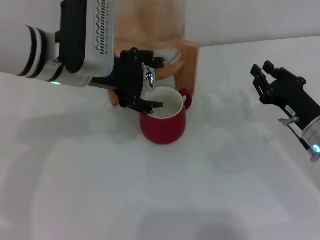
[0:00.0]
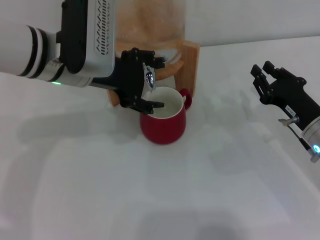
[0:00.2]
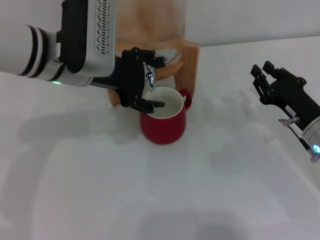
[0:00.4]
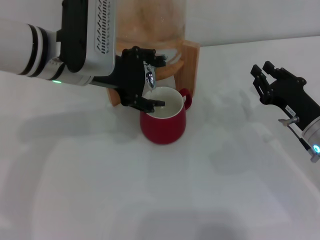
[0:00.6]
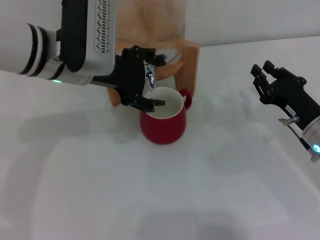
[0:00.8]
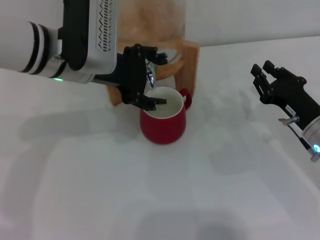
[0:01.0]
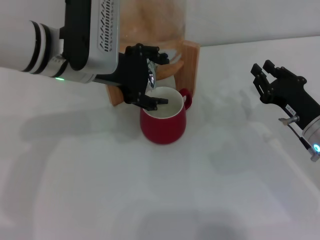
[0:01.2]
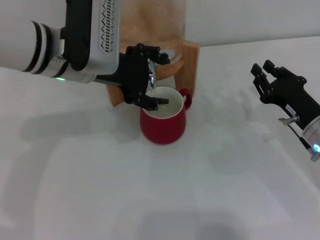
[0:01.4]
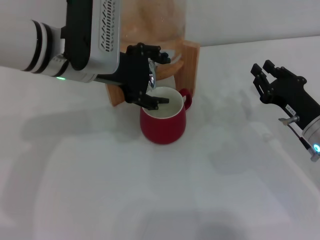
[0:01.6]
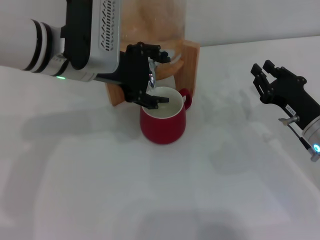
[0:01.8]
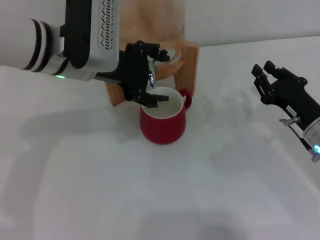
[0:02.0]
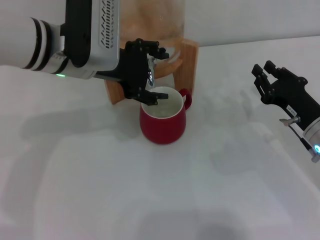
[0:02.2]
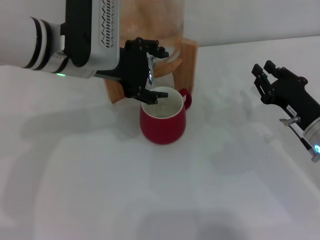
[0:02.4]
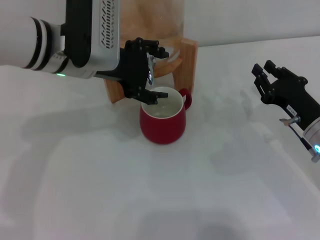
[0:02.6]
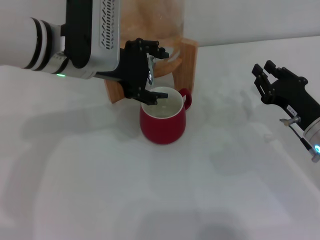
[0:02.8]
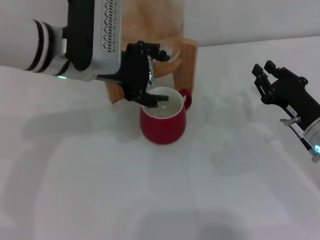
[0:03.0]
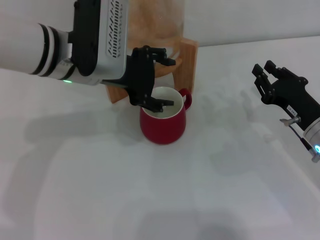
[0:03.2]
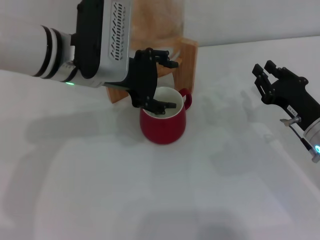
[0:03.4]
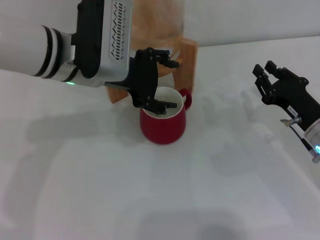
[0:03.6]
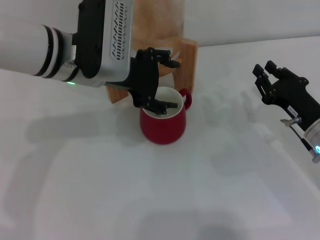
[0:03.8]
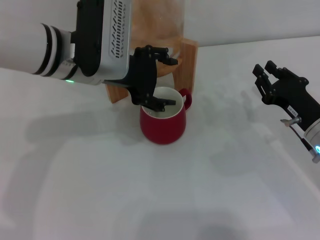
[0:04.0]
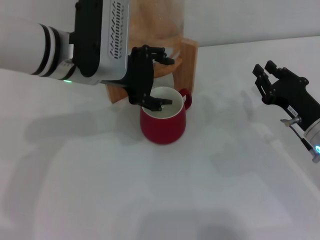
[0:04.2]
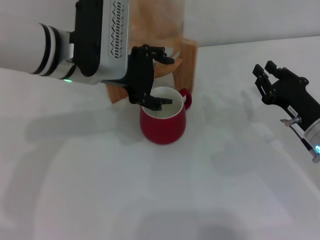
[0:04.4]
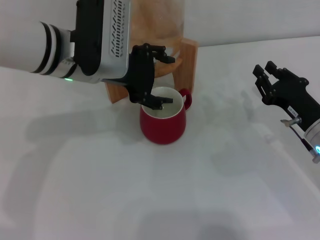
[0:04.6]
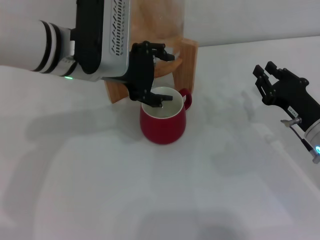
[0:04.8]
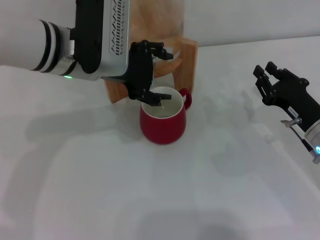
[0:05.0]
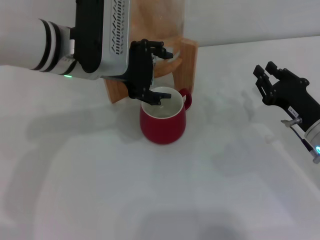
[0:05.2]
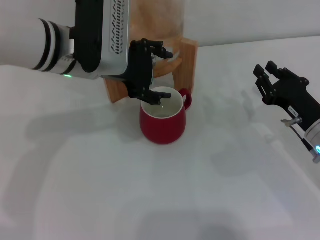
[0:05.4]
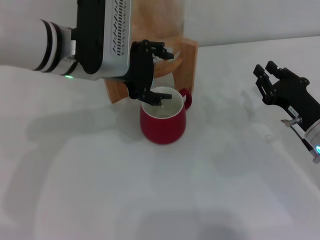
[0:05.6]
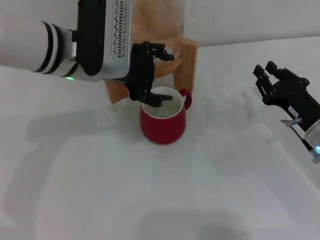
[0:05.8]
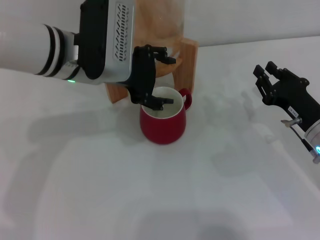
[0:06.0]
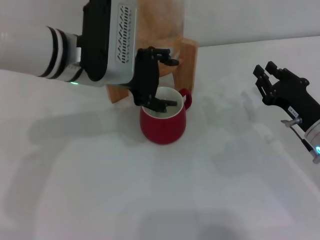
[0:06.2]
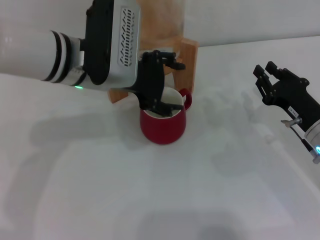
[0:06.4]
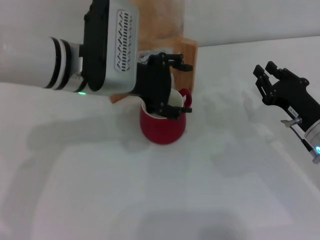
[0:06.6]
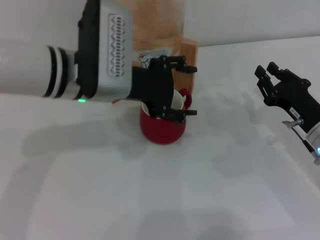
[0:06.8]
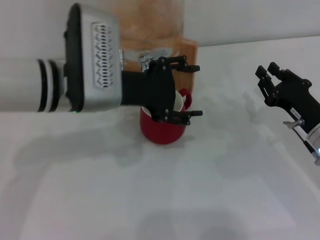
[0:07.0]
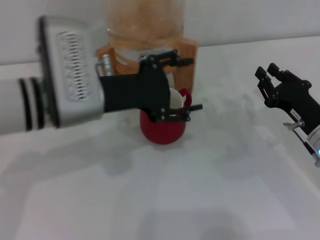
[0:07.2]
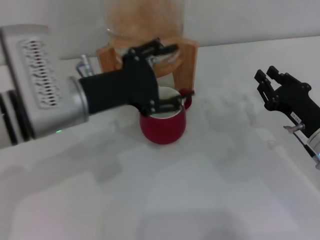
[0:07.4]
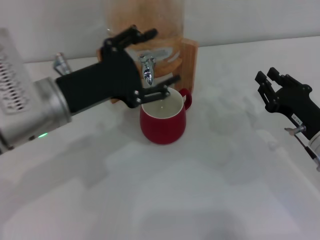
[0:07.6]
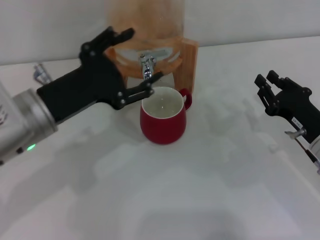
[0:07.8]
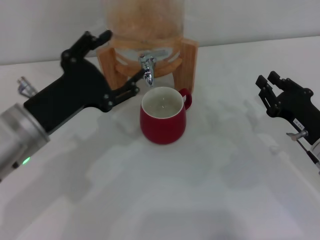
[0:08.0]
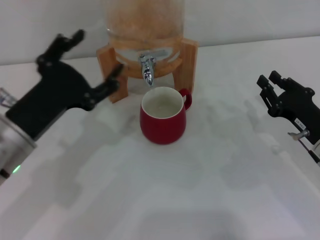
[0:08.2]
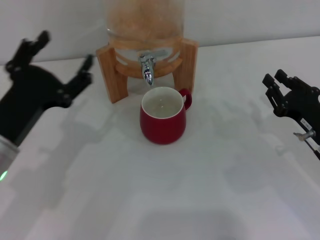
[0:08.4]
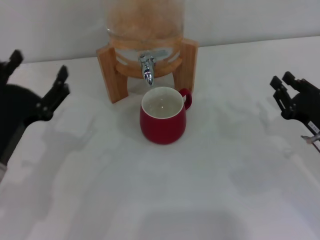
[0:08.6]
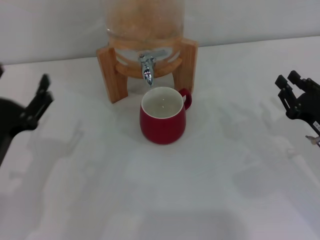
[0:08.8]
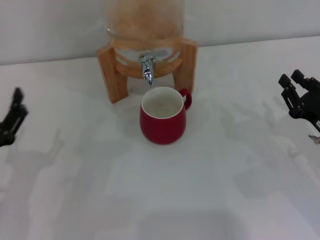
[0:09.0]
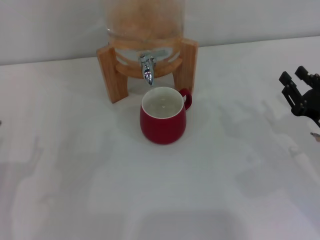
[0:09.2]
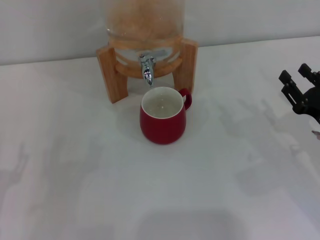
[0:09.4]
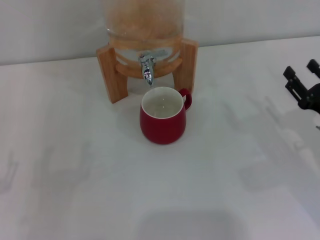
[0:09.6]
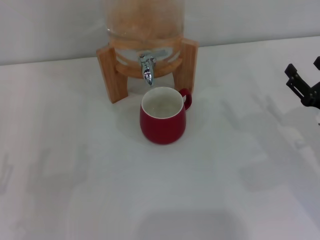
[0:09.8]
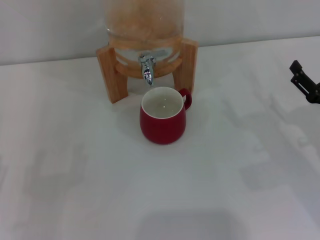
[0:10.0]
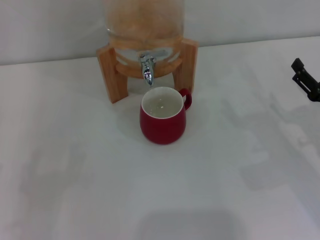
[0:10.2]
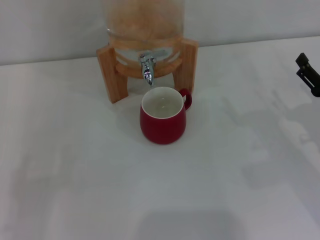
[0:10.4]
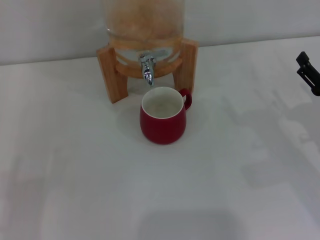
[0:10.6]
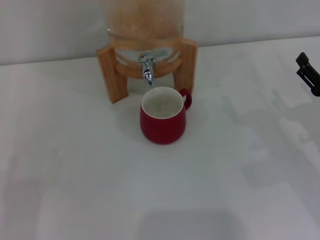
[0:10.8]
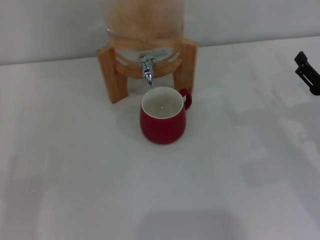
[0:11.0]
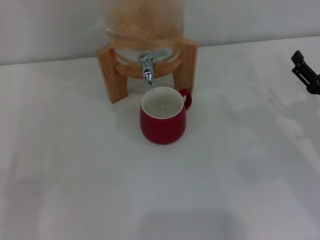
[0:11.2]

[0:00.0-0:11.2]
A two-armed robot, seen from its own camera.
Task of the whole recording: the right gripper pick up the red cup and place it horizontally under the faucet, the left gripper turn on the faucet to fill the cup, and then turn off the faucet.
Step, 0:00.0 to 0:07.4: Close the dispenser valve with the left gripper.
0:00.0 to 0:01.6: Both grippers stay about where they are.
0:01.6 to 0:04.8: The two grippers keep their place.
0:04.8 to 0:06.4: There are only small adjustments of the grippers.
0:06.4 to 0:08.0: The left gripper moves backward and to the left, approximately 15 cm.
0:08.0 to 0:09.6: The right gripper opens up; the left gripper travels backward, to the left and downward by about 20 cm.
0:09.6 to 0:11.2: The right gripper opens.
